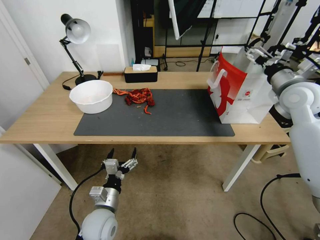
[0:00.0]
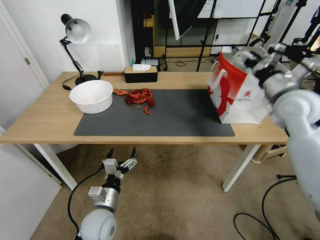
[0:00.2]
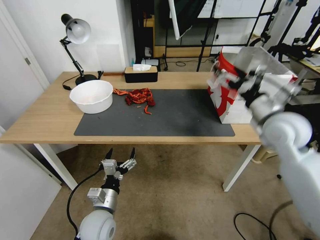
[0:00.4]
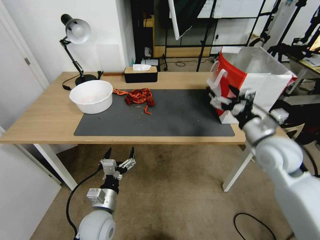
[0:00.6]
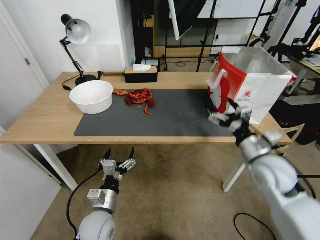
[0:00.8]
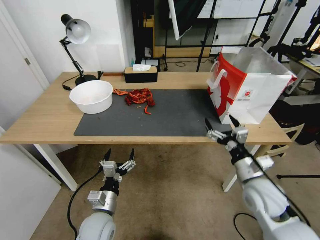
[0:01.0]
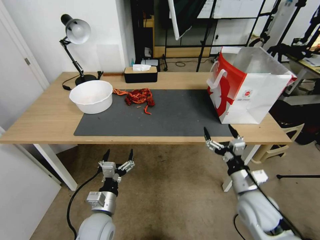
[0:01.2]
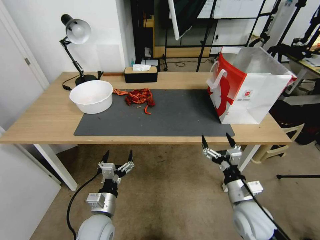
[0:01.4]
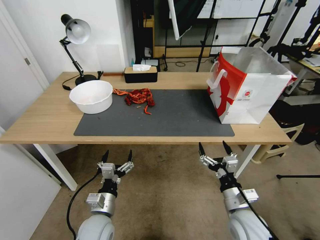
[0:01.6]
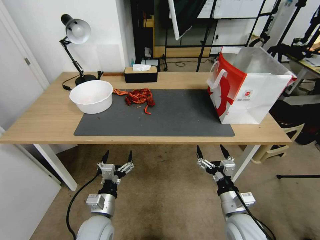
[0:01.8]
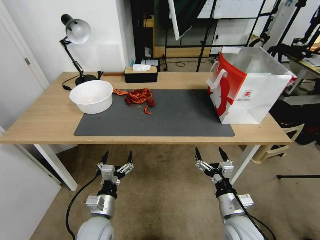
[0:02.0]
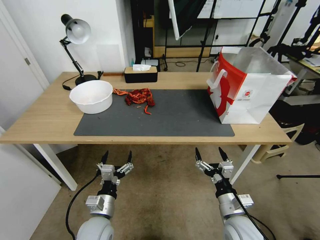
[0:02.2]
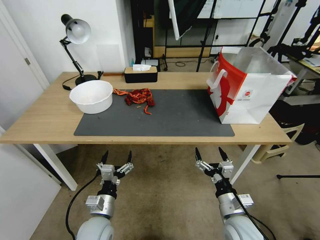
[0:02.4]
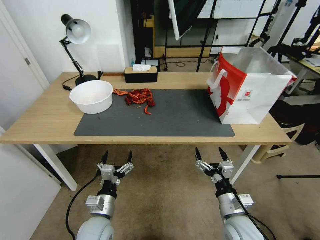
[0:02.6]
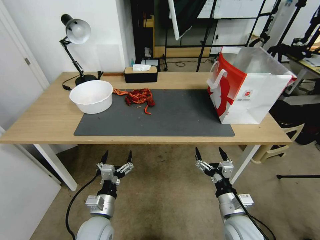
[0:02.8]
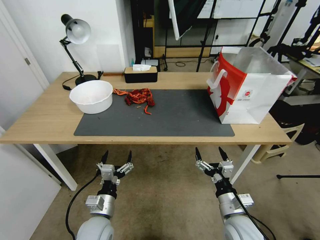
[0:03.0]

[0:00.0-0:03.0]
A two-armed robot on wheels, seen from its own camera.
Task of the whole recording: Close the takeout container lid, then place the container into the takeout bag.
0.0 to 1.6 s: The right gripper shifts about 40 cm downward, backward and to the left.
1.6 to 3.0 s: There are only small adjustments of the grippers.

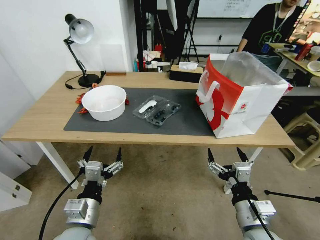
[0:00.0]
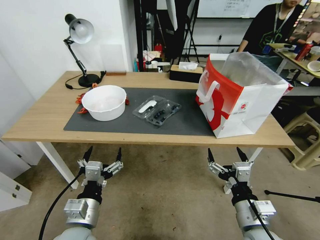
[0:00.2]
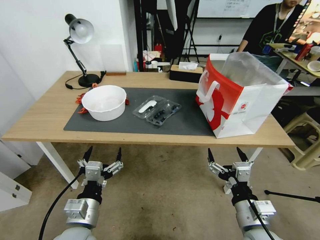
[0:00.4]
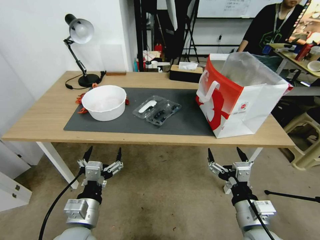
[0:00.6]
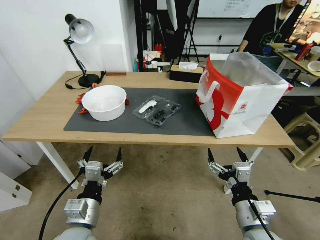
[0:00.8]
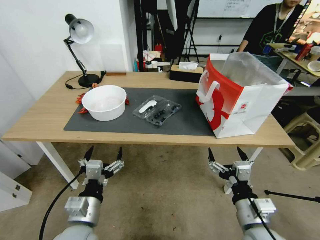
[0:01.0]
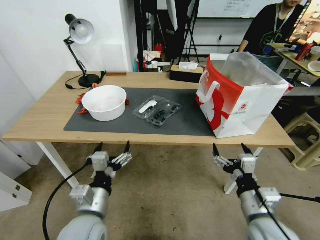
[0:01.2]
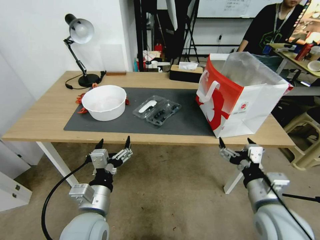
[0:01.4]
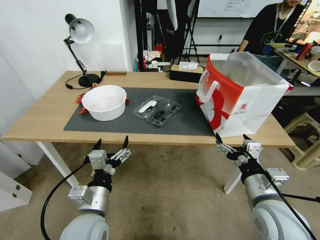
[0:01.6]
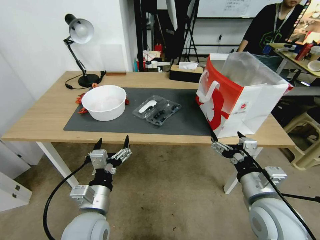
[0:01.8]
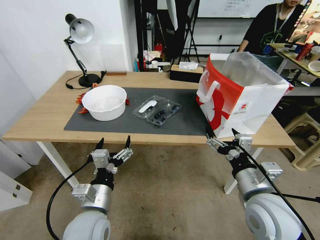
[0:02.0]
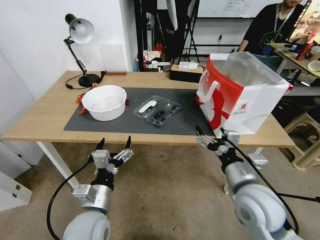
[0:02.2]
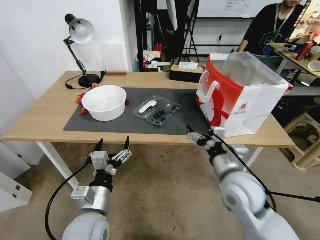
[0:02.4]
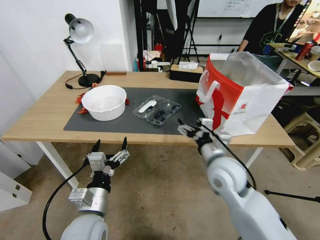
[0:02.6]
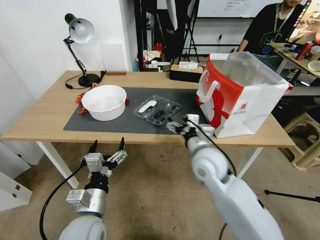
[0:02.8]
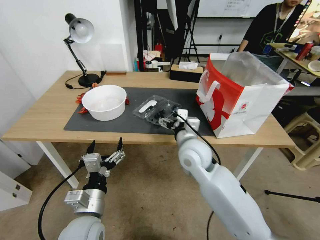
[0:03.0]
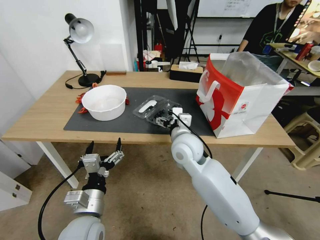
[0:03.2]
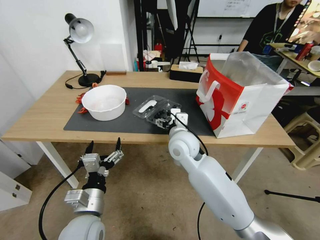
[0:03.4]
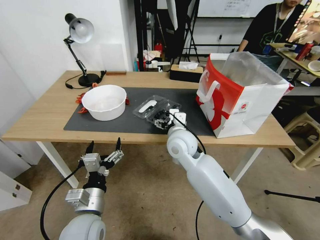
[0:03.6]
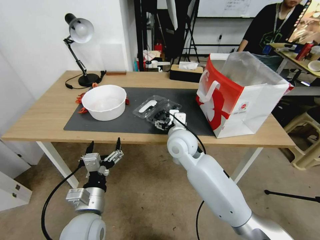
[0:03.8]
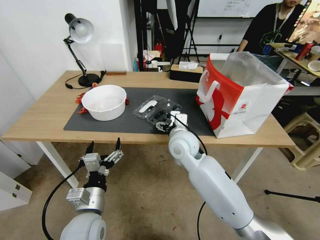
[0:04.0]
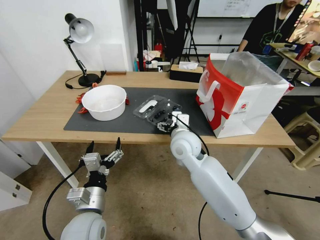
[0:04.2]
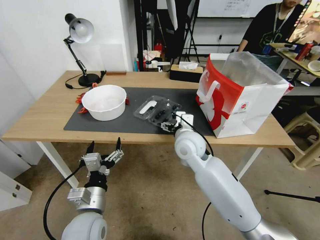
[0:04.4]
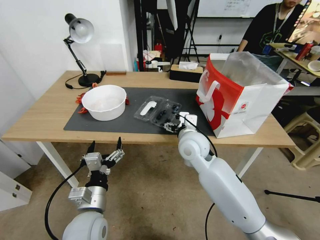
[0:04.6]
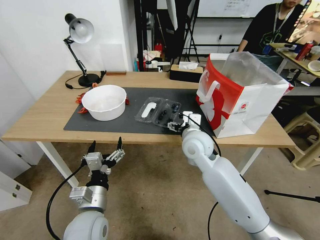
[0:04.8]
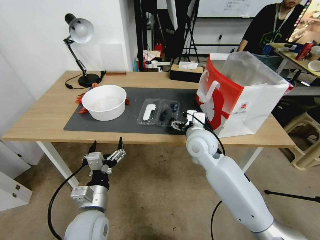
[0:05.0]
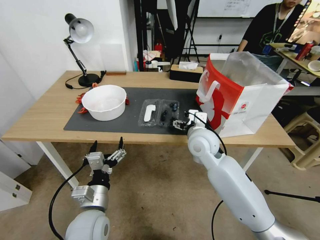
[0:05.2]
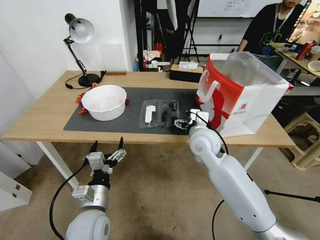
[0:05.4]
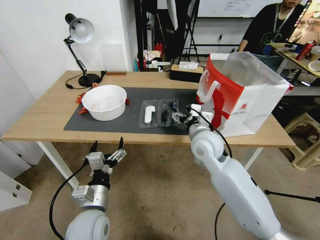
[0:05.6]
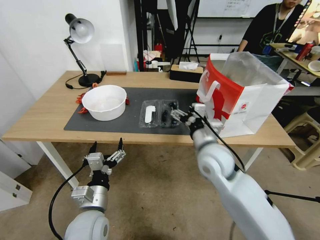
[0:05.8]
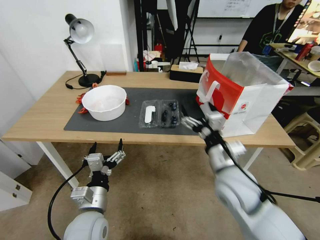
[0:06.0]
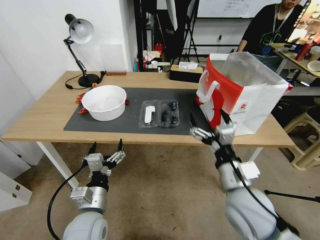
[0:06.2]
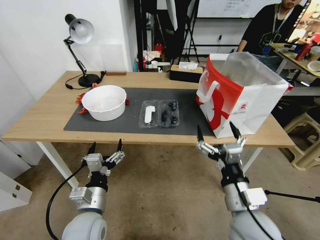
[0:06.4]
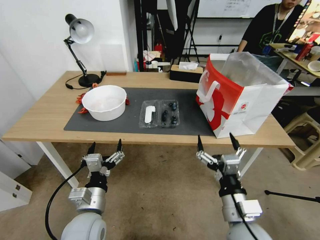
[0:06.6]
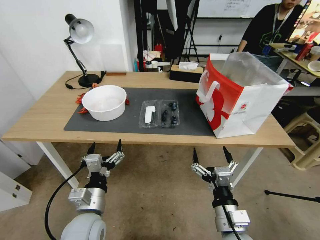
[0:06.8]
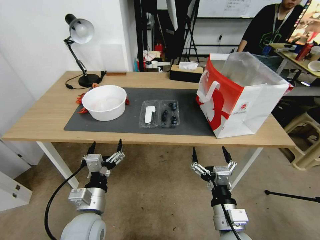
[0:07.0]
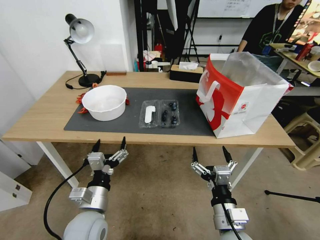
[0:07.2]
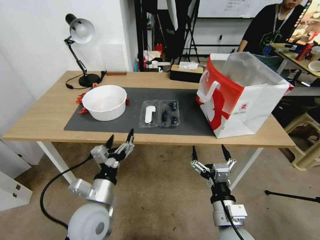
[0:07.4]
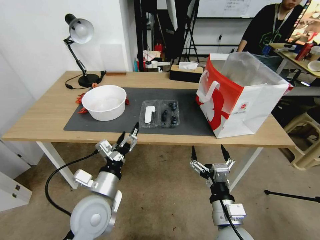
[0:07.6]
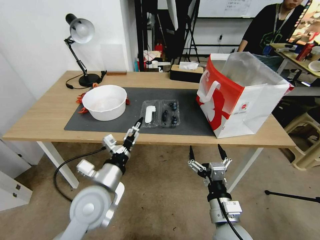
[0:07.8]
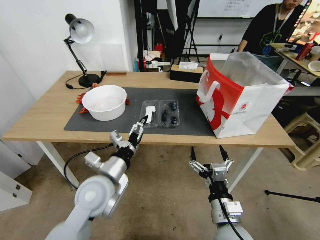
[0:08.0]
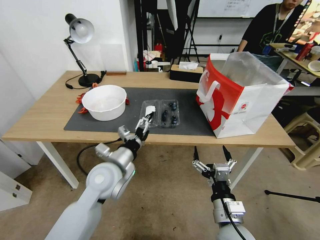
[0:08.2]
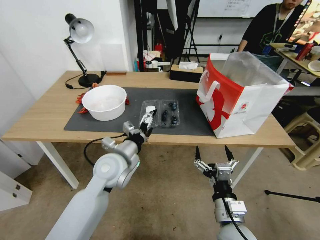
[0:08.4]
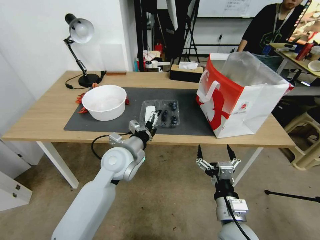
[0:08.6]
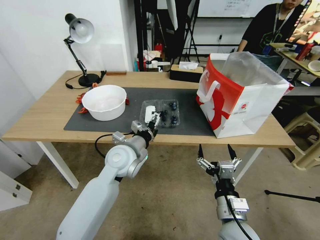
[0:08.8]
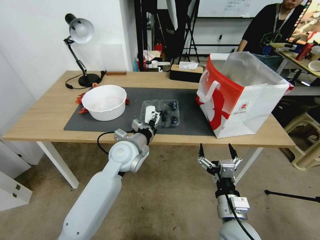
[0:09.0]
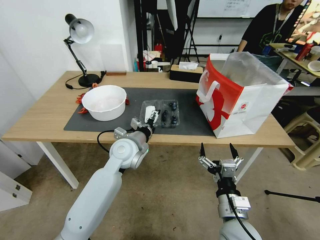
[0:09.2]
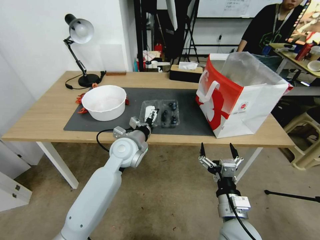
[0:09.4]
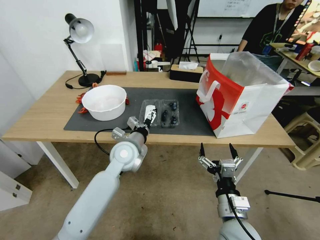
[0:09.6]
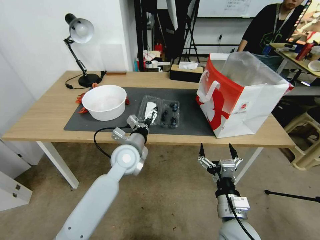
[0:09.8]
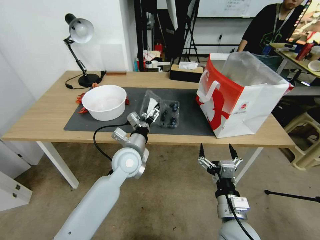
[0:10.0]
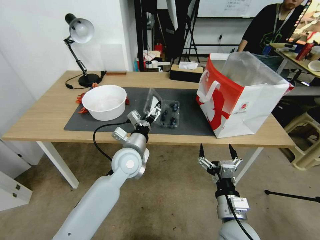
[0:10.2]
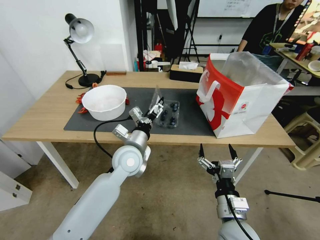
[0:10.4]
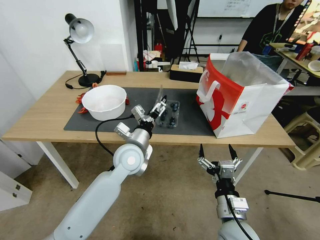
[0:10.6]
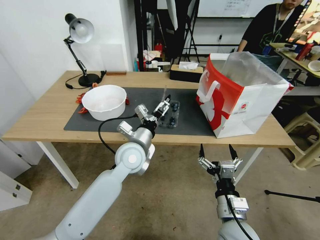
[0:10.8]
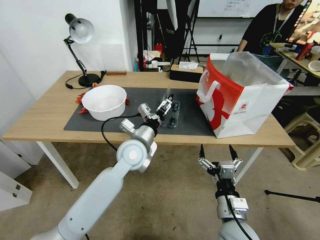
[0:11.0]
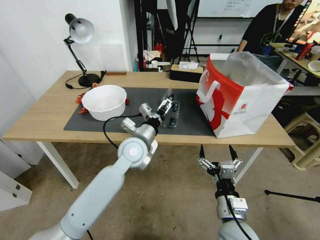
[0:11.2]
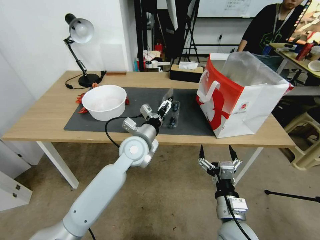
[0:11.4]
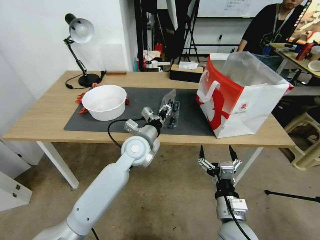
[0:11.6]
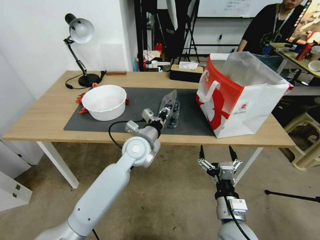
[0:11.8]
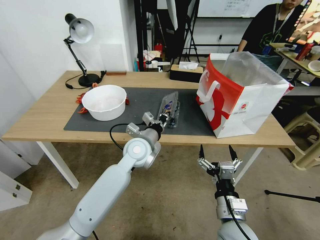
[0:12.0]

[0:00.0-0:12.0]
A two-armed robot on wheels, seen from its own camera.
Task of the whole recording: Close the takeout container lid, then place the container into the takeout bag.
1.6 to 3.0 s: The right gripper shifts approximately 25 cm forward and to the left.
3.0 to 4.4 s: There are only small adjustments of the grippers.
4.4 to 6.0 s: The right gripper heads backward and to the right, covering some 15 cm.
6.0 to 7.6 s: The right gripper travels backward and downward by approximately 15 cm. Meanwhile the left gripper shifts by approximately 5 cm.
7.6 to 9.0 s: The left gripper heads forward and to the right, covering about 15 cm.
10.4 to 12.0 s: The left gripper closes.

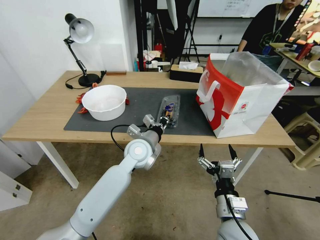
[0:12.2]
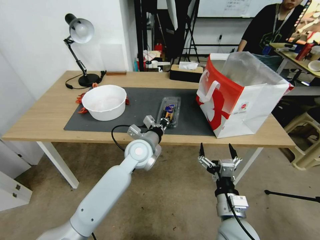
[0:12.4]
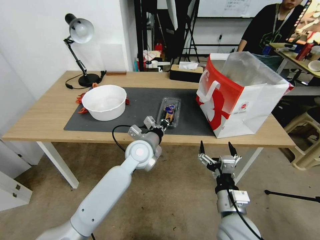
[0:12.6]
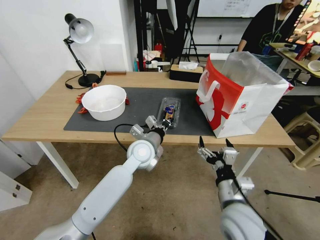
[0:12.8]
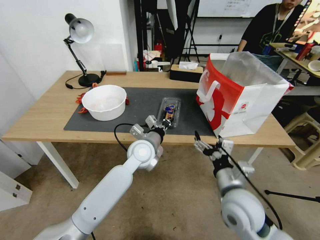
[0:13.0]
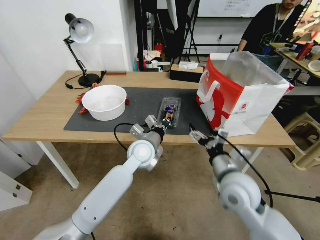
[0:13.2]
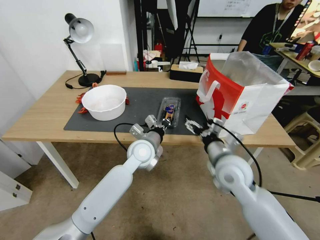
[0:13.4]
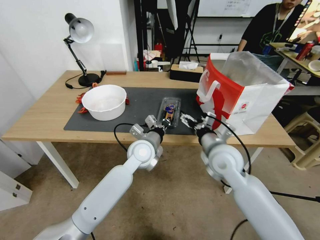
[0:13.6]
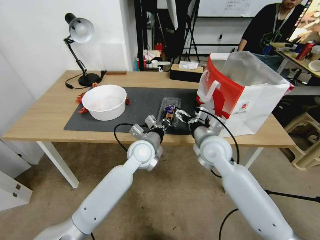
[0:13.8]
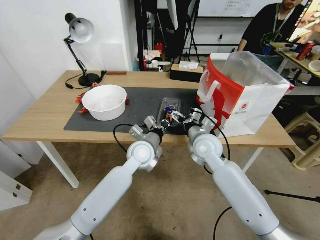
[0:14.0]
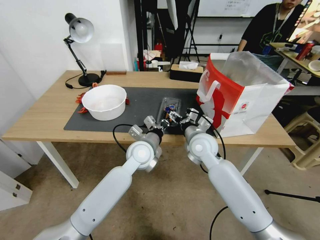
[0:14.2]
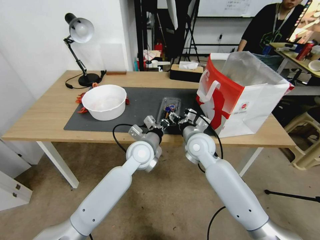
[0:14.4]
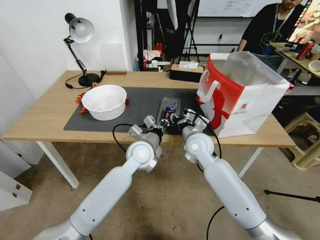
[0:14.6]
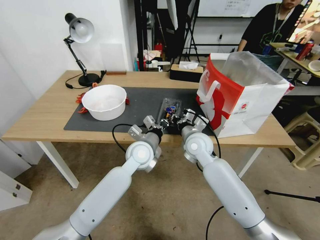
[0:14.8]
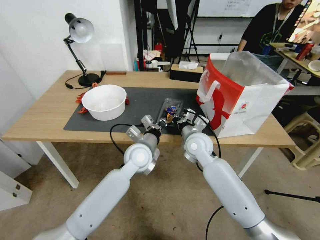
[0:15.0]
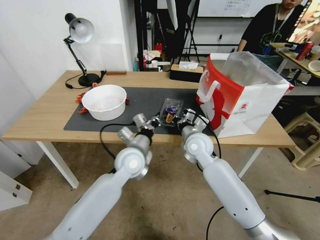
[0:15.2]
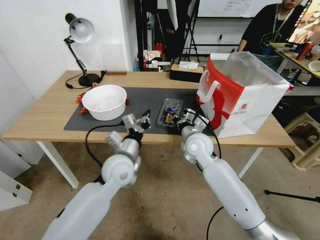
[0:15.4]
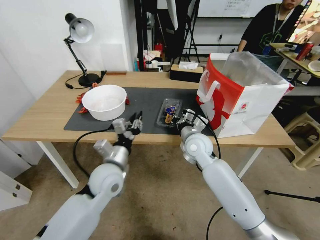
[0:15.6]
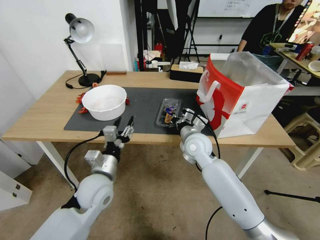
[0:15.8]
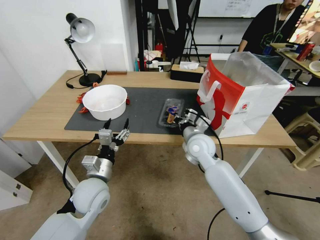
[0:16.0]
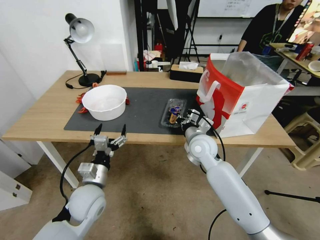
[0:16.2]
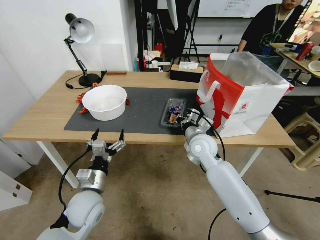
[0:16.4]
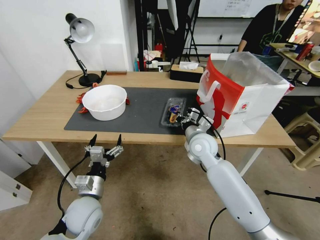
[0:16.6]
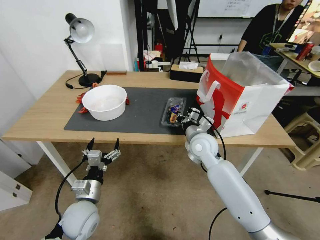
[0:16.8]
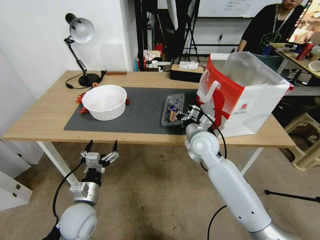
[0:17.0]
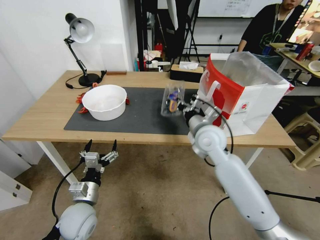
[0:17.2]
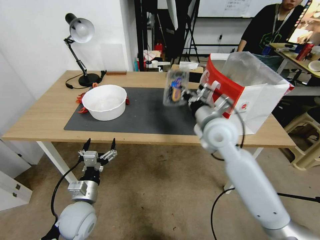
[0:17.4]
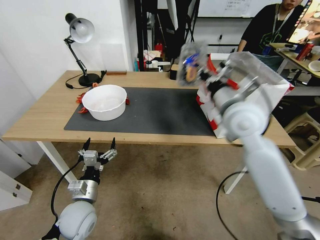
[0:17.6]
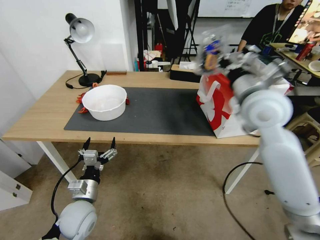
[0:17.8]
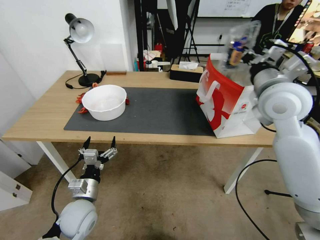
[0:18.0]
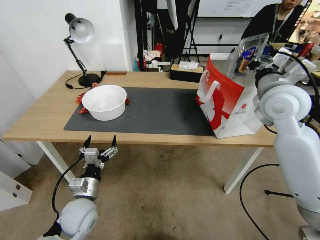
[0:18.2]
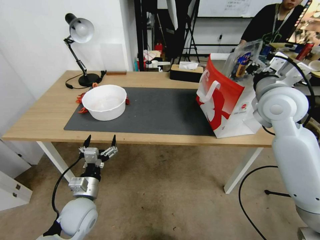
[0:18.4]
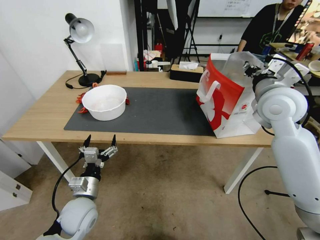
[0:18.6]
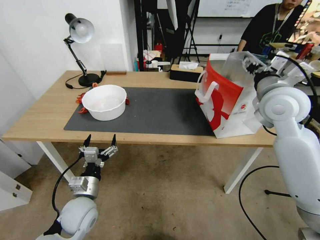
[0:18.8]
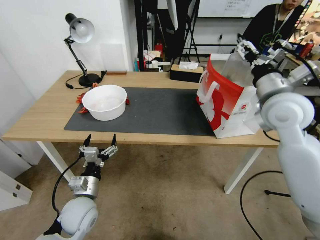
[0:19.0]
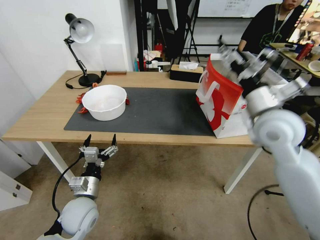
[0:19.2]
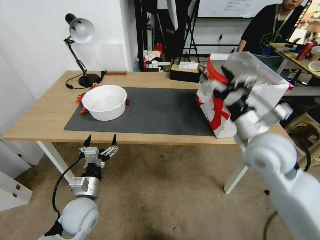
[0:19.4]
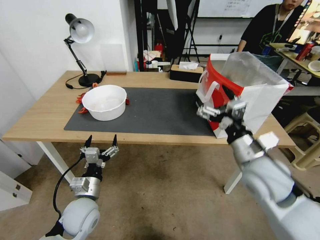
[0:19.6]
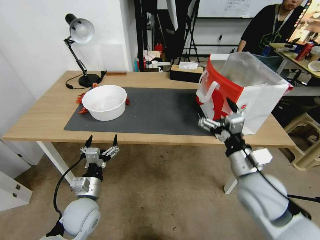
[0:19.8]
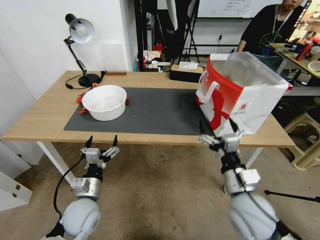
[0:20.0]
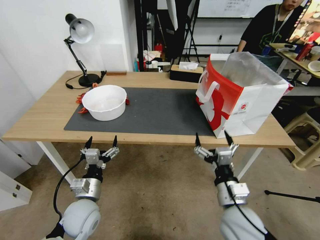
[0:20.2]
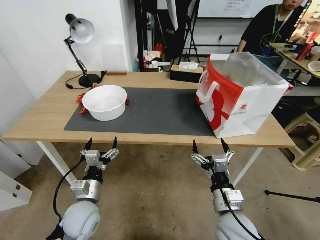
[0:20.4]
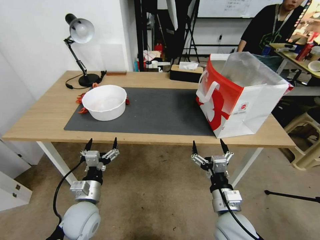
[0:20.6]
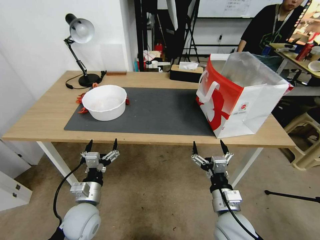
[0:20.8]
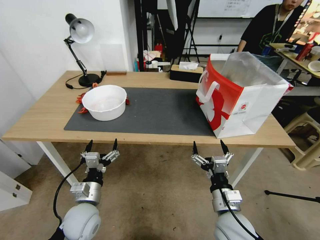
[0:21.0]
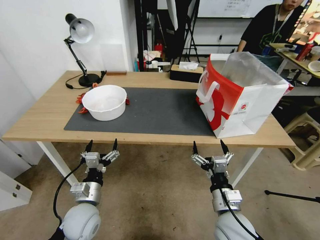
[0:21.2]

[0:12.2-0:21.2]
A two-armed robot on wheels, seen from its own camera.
Task of the whole recording: Close the takeout container lid, then place the container into the takeout bag.
12.2 to 13.8 s: The right gripper goes about 25 cm forward and upward.
13.8 to 15.2 s: The right gripper shifts by some 5 cm, and closes up.
15.2 to 16.6 s: The left gripper is displaced to the left, backward and downward by roughly 20 cm, and opens up.
16.6 to 18.2 s: The right gripper heads upward and to the right, covering about 25 cm.
18.2 to 19.8 s: The right gripper heads downward and backward, covering roughly 20 cm, and opens its fingers.
19.8 to 21.2 s: The right gripper heads downward and backward, covering approximately 15 cm.
